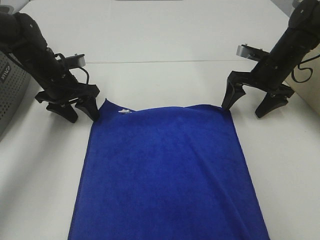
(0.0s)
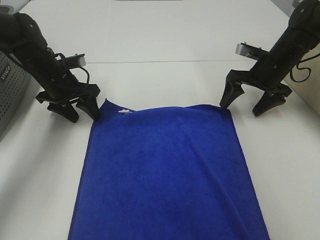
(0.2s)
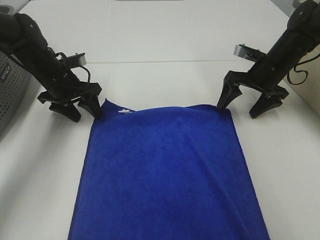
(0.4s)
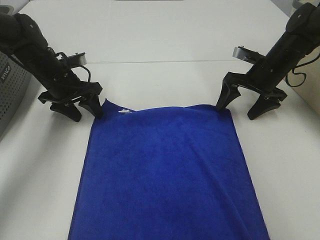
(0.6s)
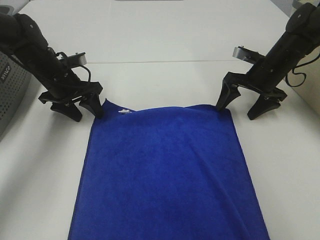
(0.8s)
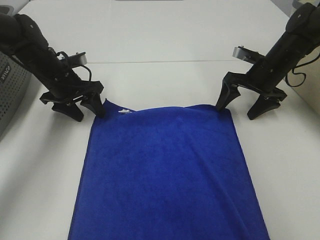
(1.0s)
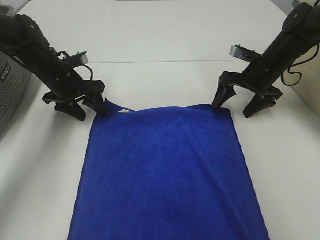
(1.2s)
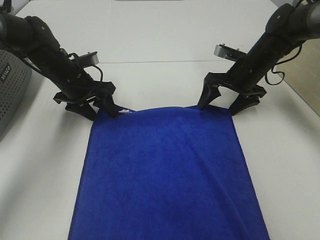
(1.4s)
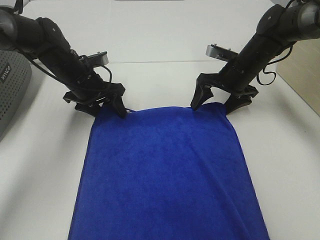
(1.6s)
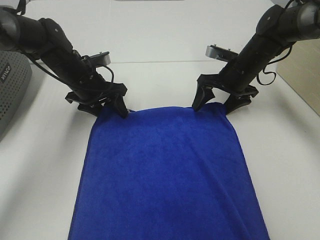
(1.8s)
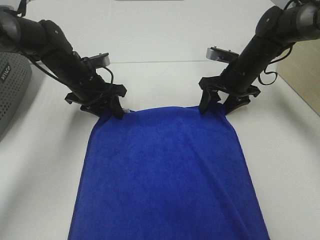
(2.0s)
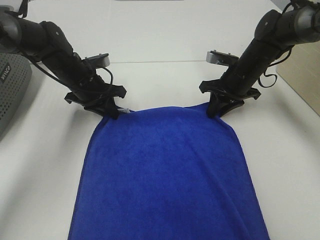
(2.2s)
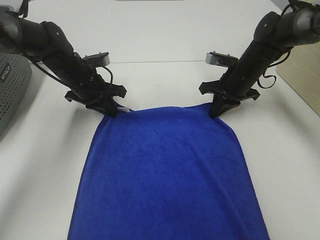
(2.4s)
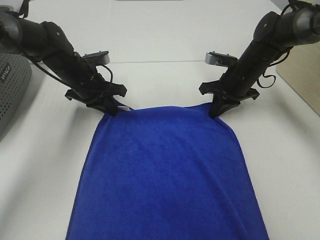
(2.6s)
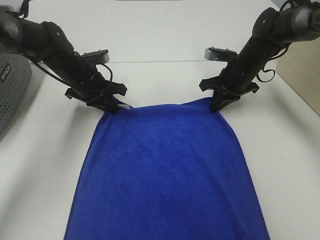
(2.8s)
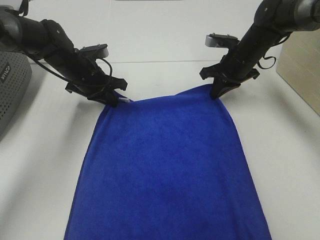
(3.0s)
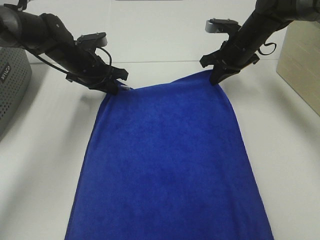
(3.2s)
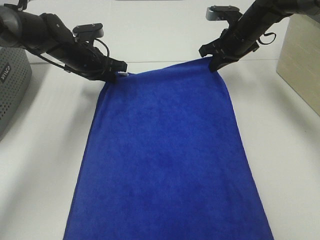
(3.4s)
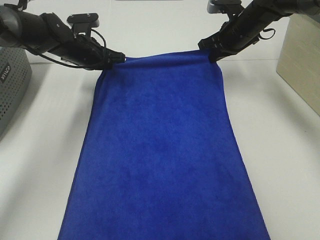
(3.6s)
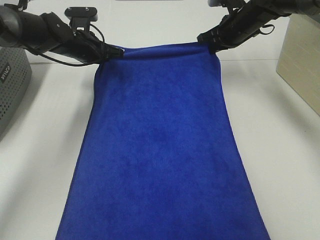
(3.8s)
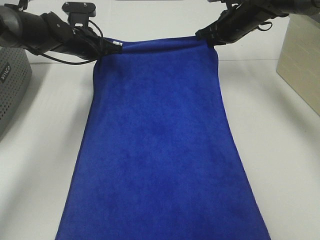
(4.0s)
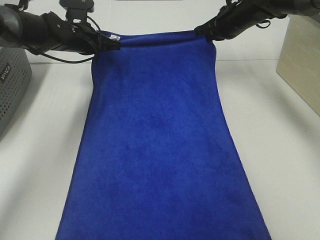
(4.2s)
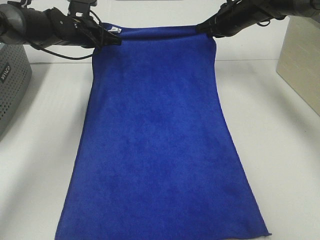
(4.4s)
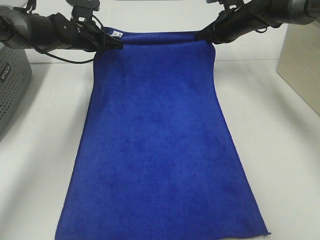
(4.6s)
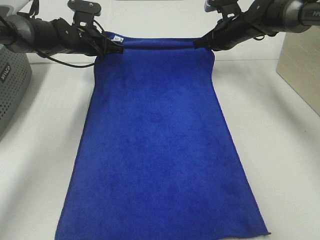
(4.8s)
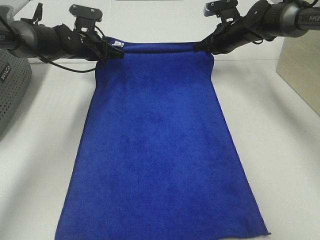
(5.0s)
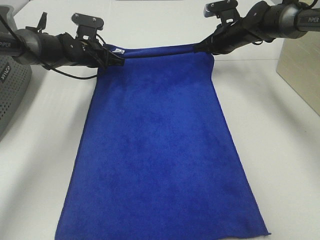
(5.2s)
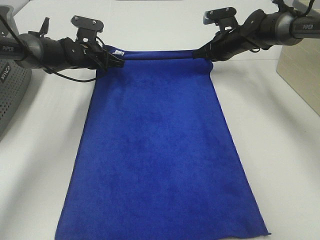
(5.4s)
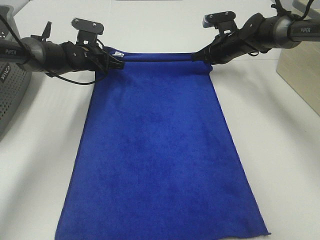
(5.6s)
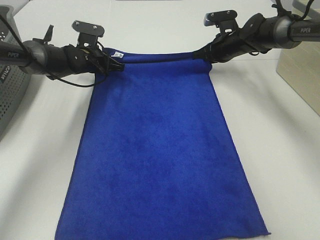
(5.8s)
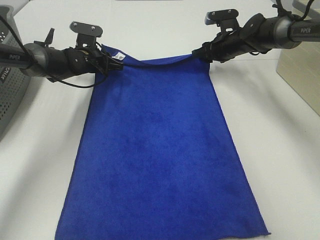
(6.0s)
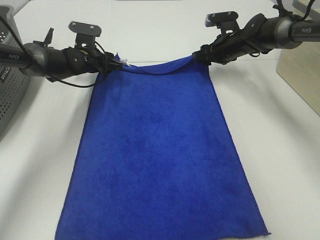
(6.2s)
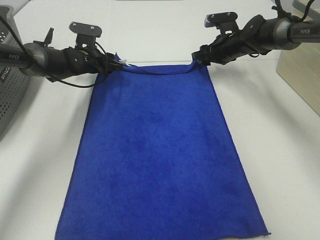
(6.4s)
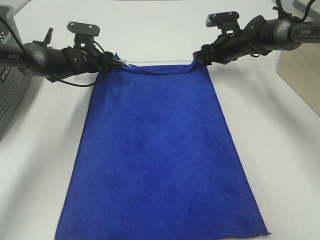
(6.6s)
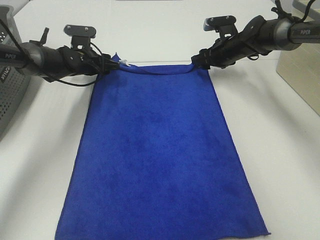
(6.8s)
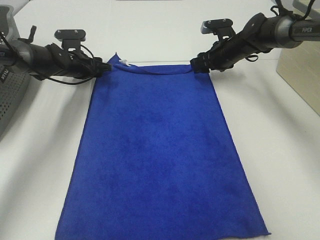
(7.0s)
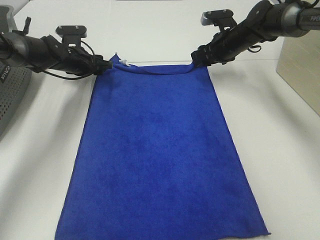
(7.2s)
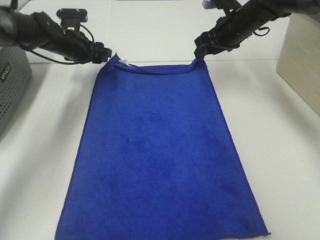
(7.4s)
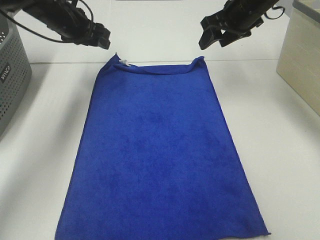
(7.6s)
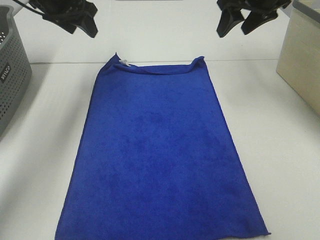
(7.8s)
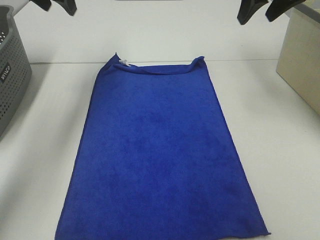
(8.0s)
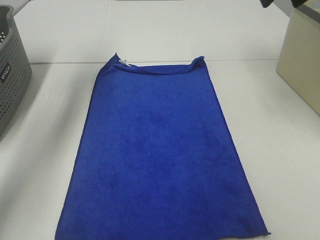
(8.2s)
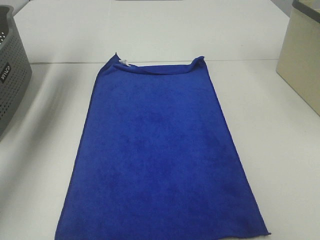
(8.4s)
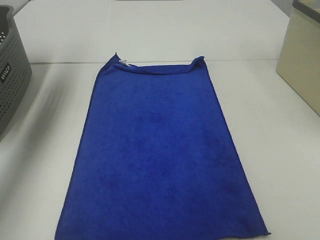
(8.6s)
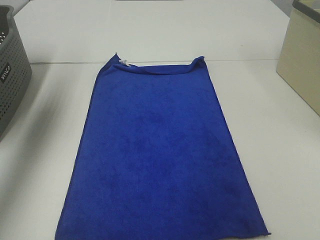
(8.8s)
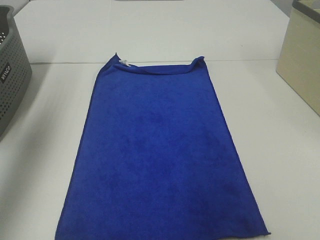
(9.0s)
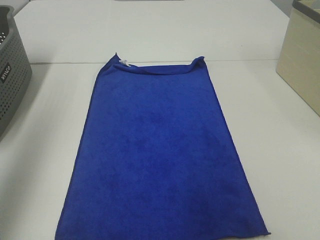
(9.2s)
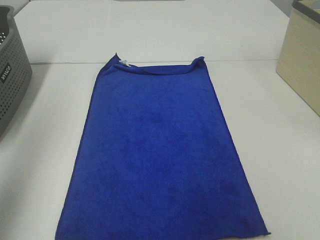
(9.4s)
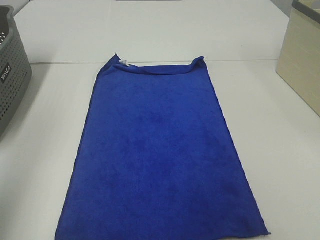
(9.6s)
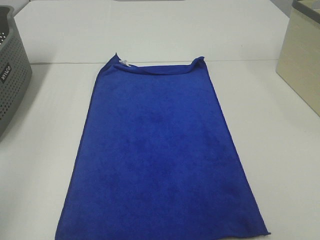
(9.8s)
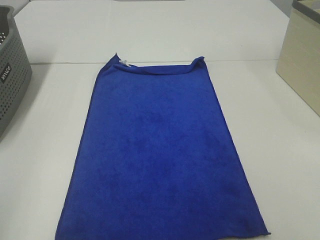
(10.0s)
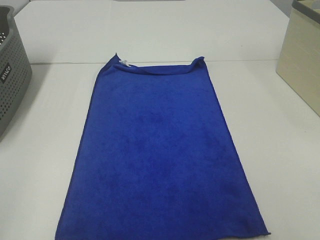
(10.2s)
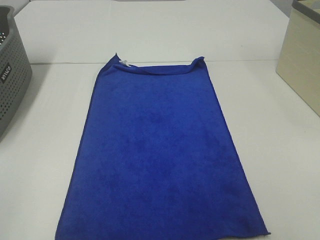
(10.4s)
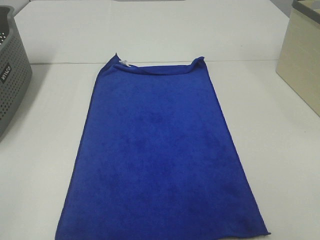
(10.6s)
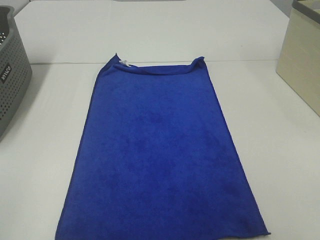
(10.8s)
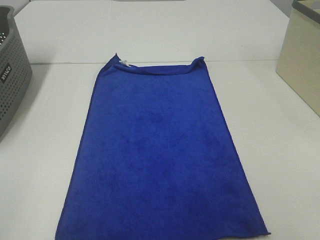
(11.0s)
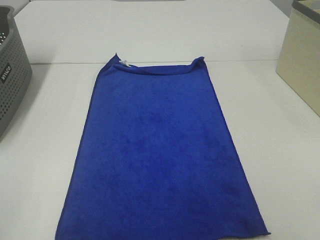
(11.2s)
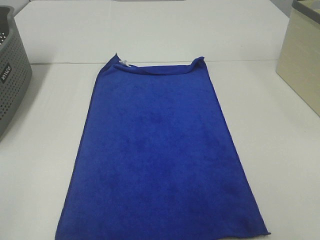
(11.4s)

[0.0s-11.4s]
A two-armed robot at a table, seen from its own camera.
Task of the whole recording: Remove the towel and place it.
0.0s to 1.4s: The right gripper shifts by some 5 cm.
1.4s to 2.8s: The left gripper closes its fingers. Meanwhile the right gripper closes its fingers.
2.8s to 4.2s: The left gripper is displaced forward and upward by roughly 10 cm. The right gripper goes some 10 cm upward and forward.
4.2s to 5.6s: Both grippers move downward, about 5 cm.
5.6s to 7.2s: The right gripper opens its fingers, while the left gripper opens up.
7.2s to 8.6s: The left gripper heads upward, covering approximately 30 cm. The right gripper heads upward, backward and to the right, covering roughly 35 cm.
8.6s to 10.0s: The left gripper travels backward by about 40 cm.

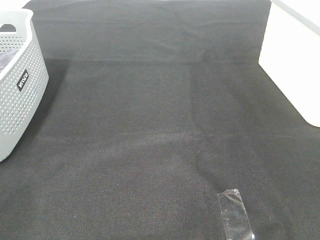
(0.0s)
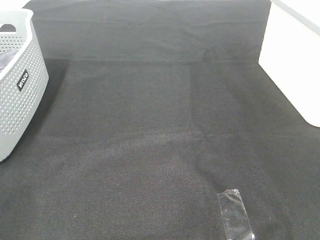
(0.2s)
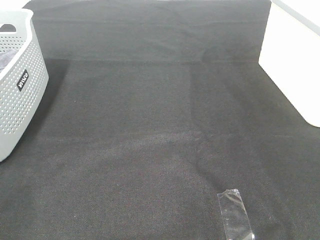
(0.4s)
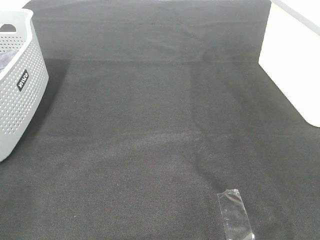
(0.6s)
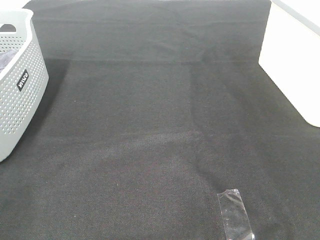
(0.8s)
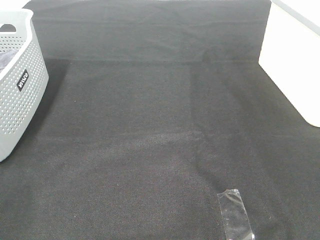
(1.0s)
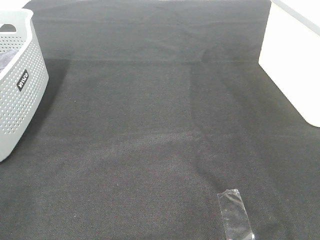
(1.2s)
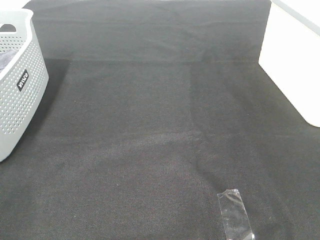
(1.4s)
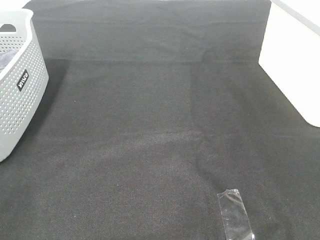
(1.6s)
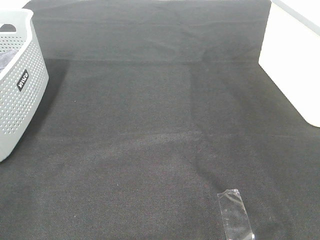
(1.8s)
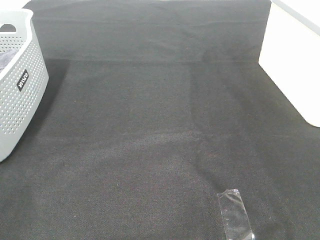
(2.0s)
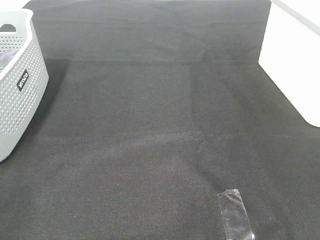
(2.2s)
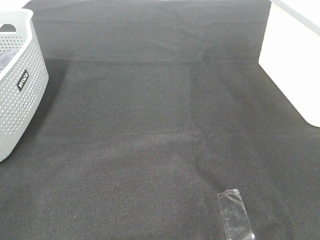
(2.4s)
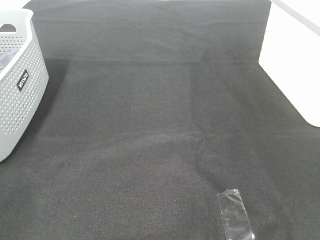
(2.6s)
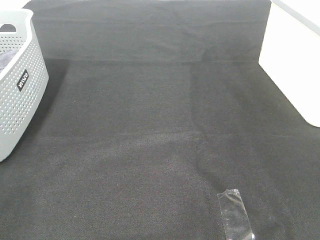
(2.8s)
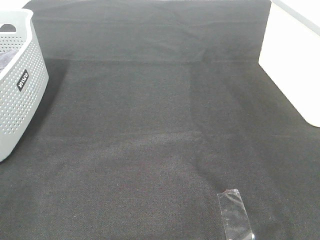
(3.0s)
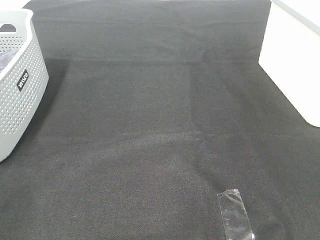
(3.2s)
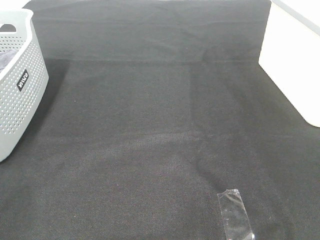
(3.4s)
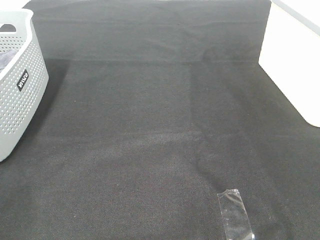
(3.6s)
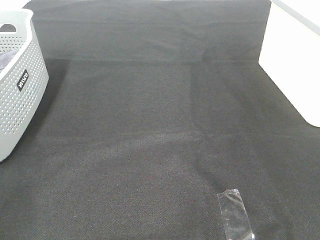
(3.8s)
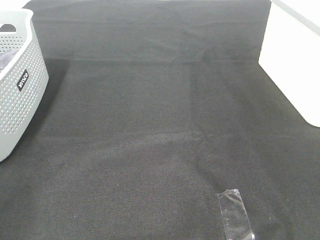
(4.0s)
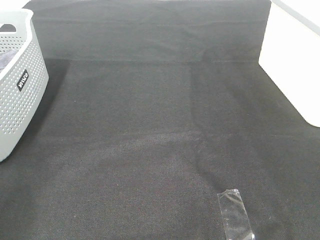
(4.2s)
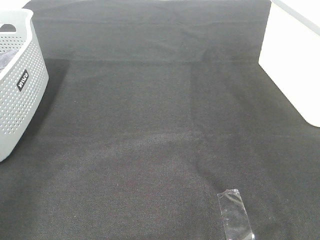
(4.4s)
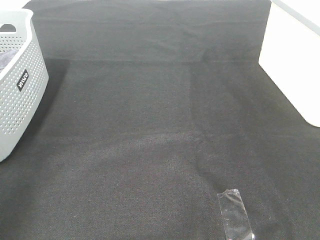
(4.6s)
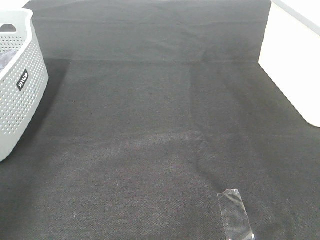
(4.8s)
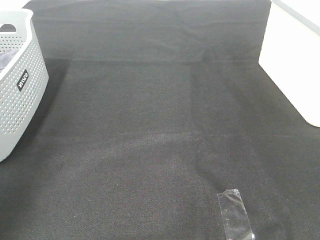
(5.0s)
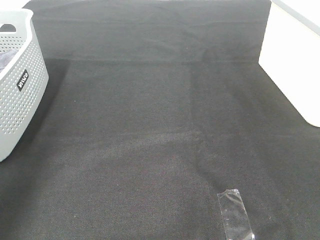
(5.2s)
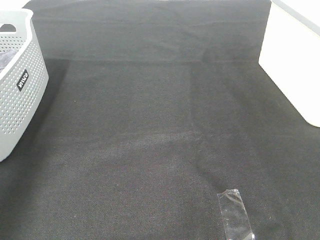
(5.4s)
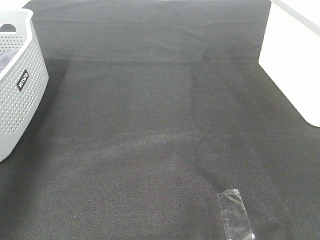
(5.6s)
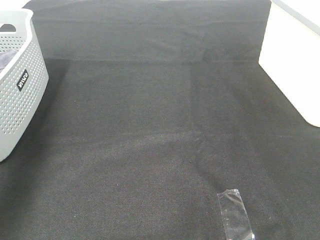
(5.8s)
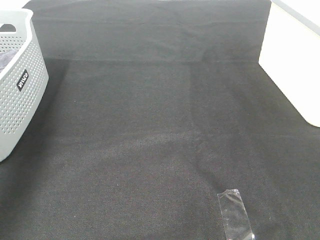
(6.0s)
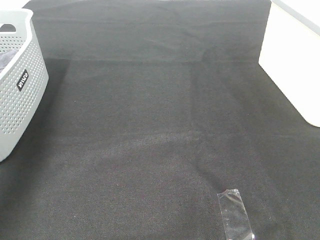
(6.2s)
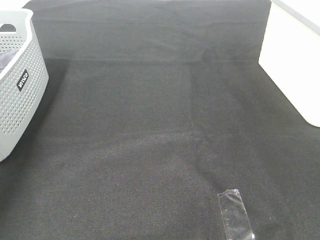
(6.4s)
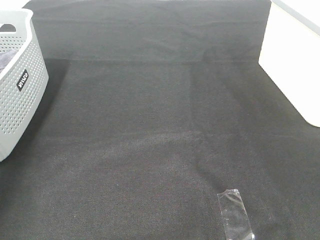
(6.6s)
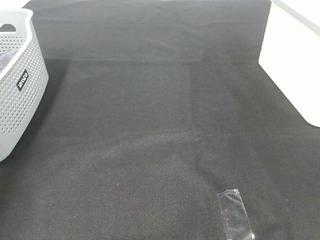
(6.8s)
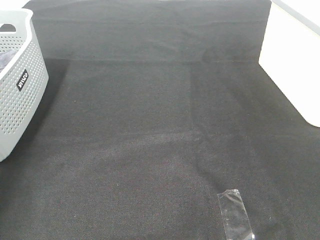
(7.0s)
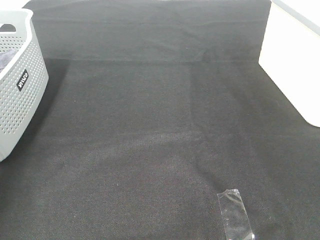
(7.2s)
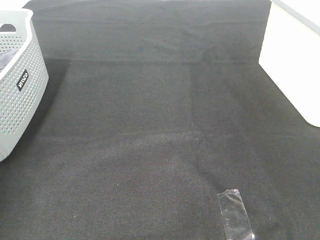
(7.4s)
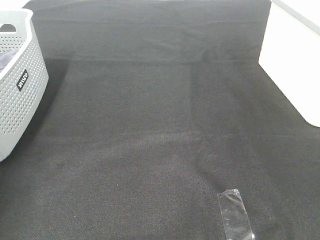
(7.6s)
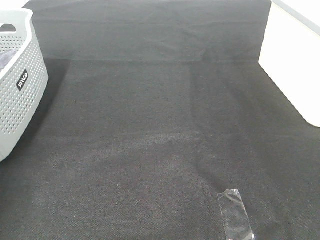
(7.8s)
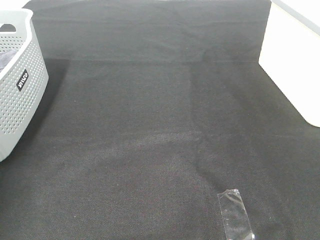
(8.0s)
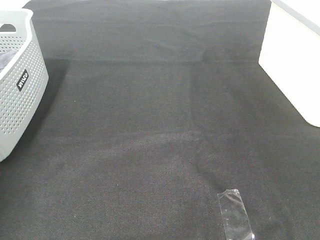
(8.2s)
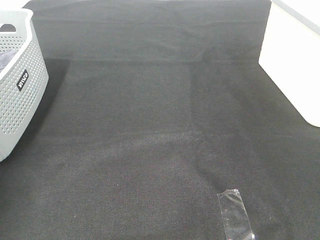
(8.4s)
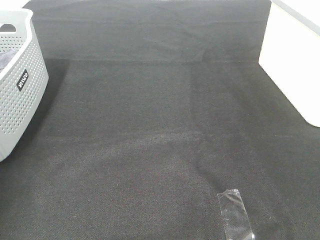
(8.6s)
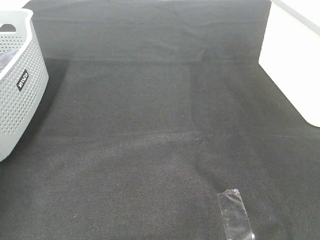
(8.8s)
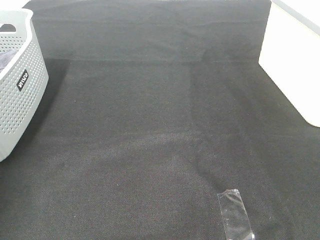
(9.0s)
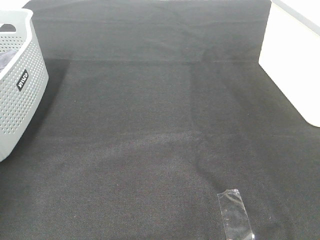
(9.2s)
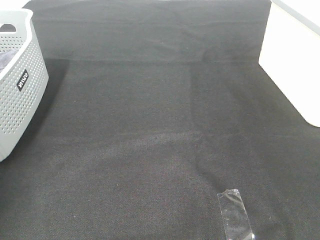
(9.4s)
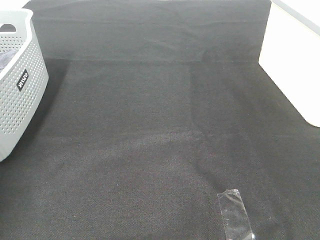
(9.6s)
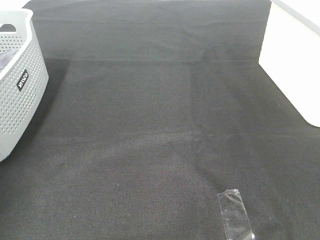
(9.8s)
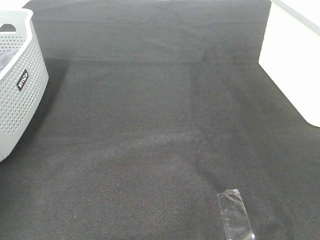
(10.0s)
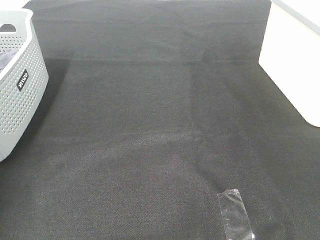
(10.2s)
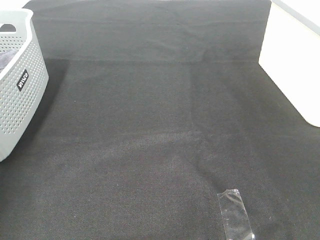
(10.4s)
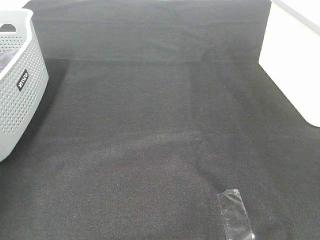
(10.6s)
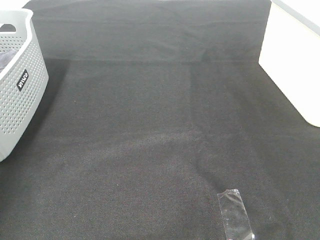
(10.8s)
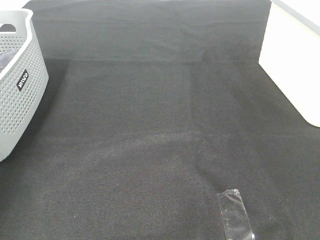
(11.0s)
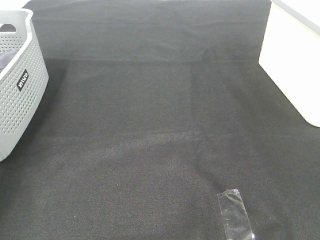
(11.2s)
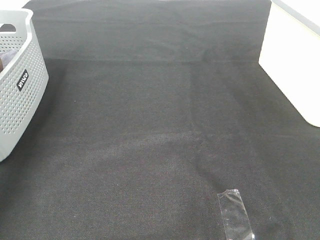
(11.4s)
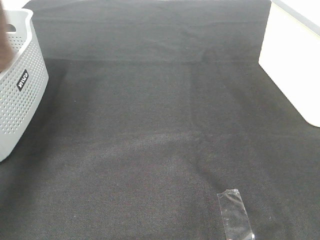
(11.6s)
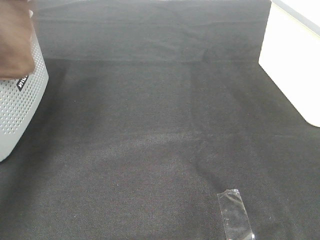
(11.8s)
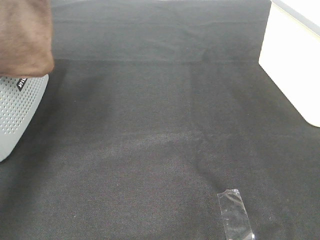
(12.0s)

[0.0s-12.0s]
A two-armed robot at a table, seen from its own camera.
Task of the whole recording: Remove the towel and place it.
0.0s to 3.0s: Neither gripper changes place.
4.4s to 6.0s: The left gripper goes about 25 cm forward.
6.0s to 7.6s: The left gripper shifts roughly 10 cm downward.
10.4s to 12.0s: The left gripper shifts approximately 20 cm upward and to the right.
